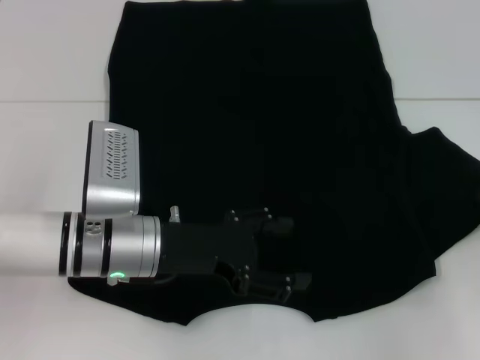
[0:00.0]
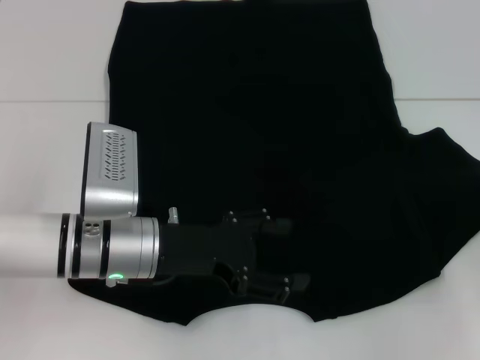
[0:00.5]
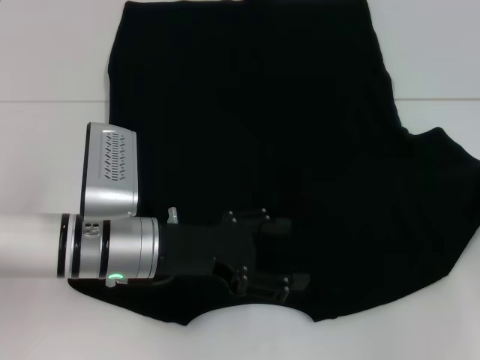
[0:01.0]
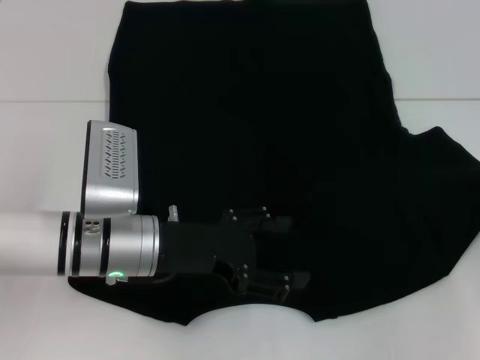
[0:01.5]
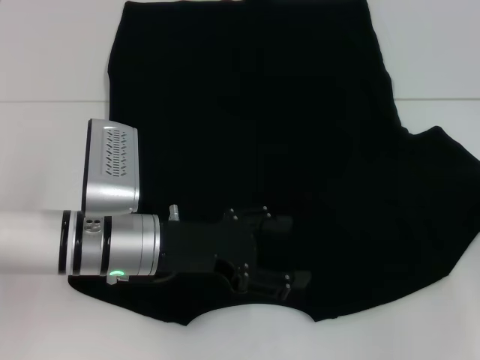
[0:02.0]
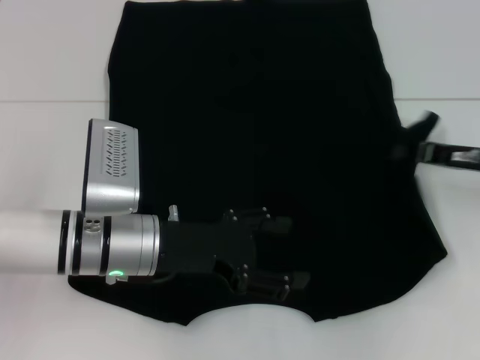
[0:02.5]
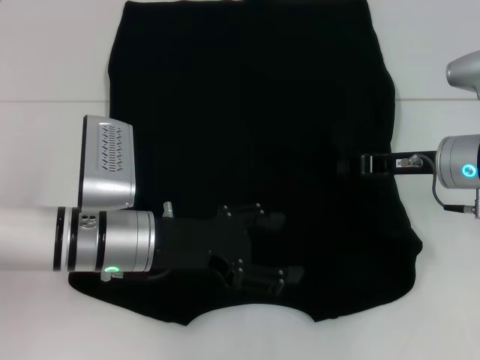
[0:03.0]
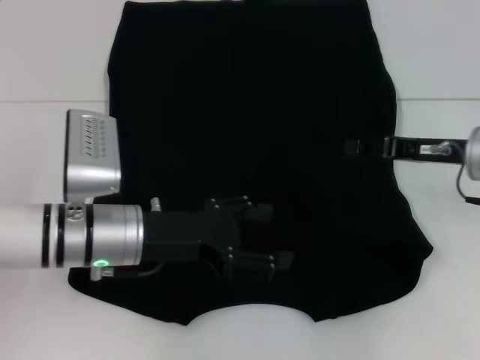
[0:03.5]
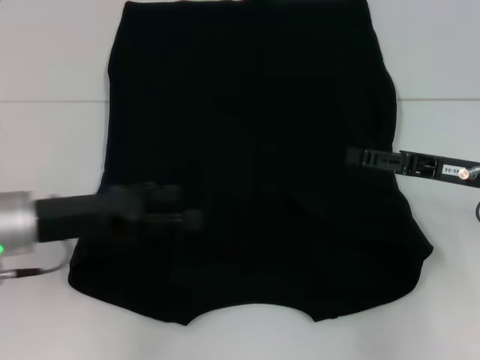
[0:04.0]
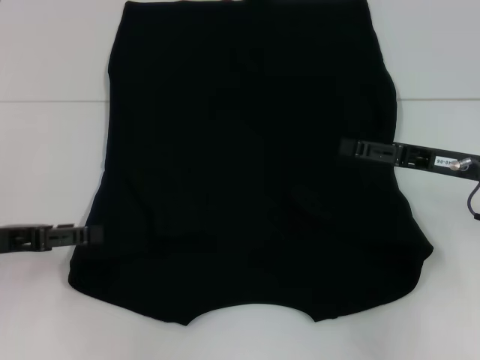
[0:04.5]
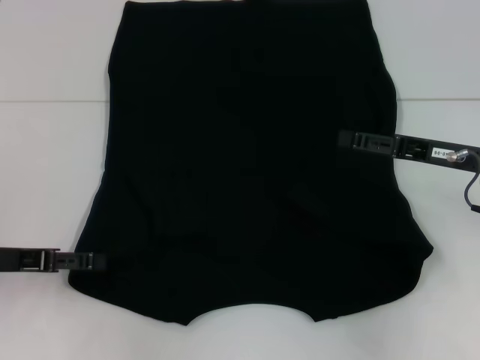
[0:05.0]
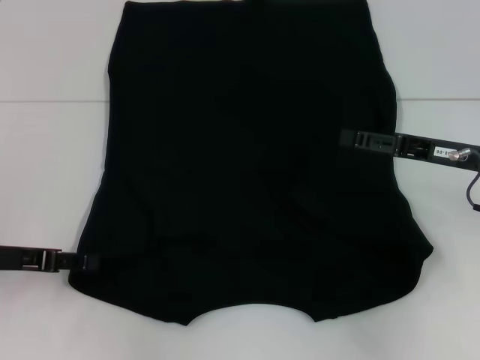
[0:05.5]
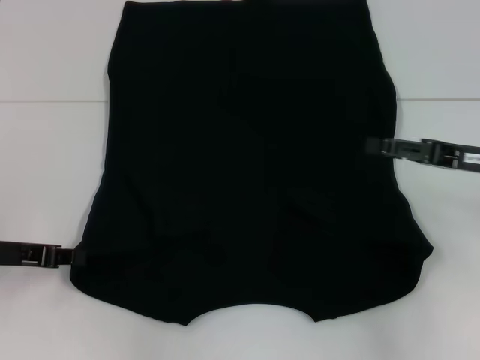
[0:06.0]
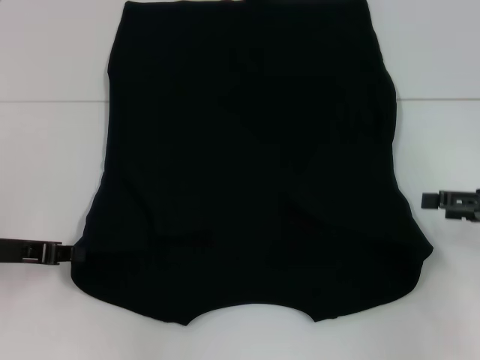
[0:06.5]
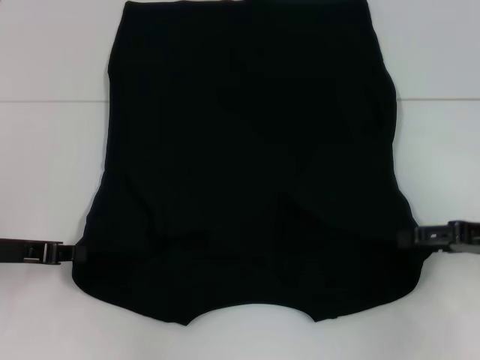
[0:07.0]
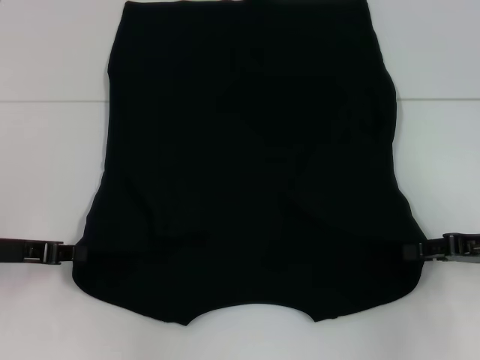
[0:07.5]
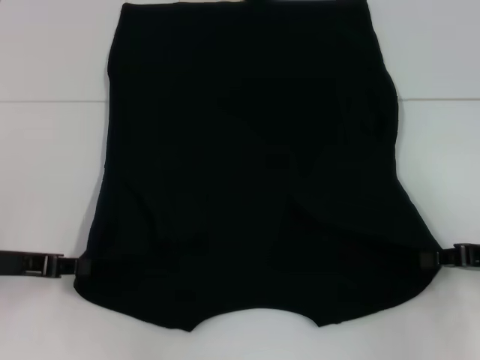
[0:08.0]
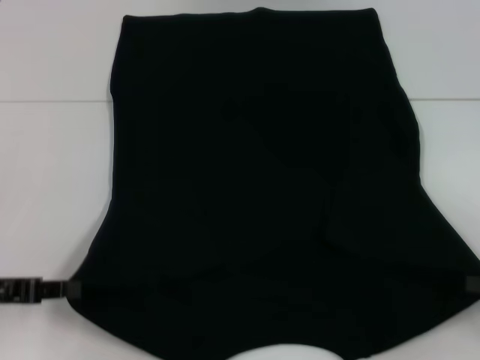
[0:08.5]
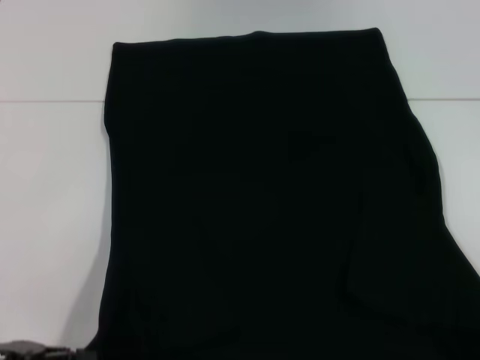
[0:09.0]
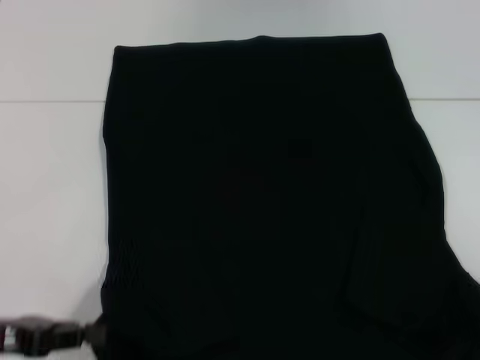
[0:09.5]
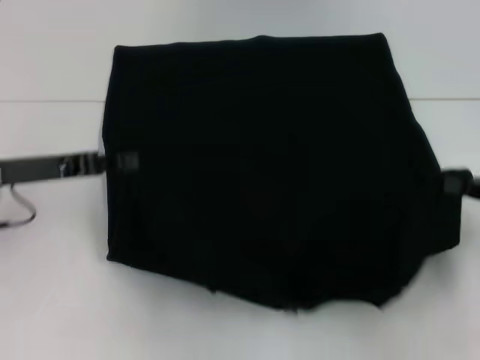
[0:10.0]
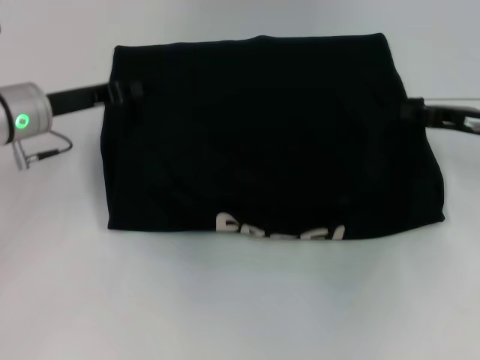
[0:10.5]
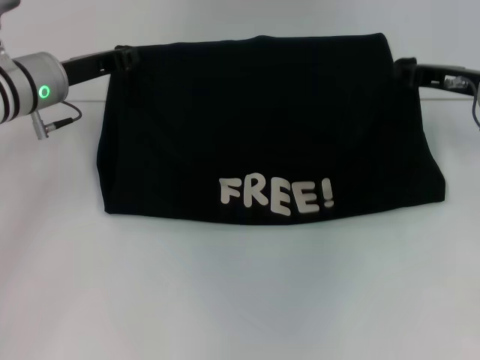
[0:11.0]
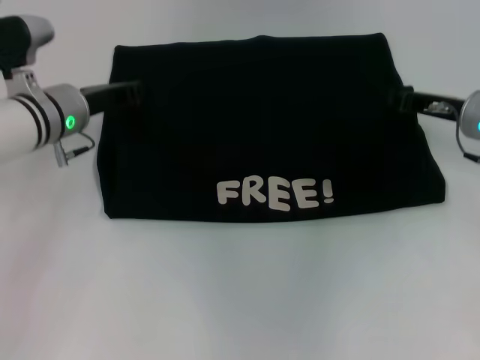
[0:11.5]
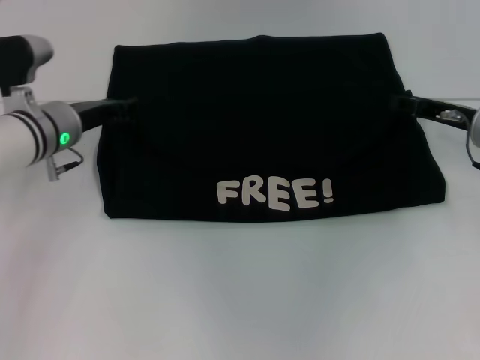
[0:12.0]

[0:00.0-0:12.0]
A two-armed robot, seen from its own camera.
Step, 0.0 to 3.0 s: Fold the bottom right sleeve with your right hand.
Step, 3.5 to 6.0 s: Grab the bottom left corner with your left hand.
Step, 6.5 to 8.0 s: Grab the bottom right corner with your right hand.
Step, 8.5 to 12.0 s: Fold the clothes with your left hand.
Step, 8.5 to 12.0 s: Fold the clothes with your right hand.
0.0 to 2.0 s: The grippers move only a little.
2.0 to 4.0 s: The grippers both shift to the left by about 10 cm. The right gripper opens its fingers.
4.0 to 6.0 s: The left gripper travels to the left by about 10 cm, and closes up.
6.0 to 8.0 s: The right gripper moves some 10 cm, and closes up.
8.0 to 10.0 s: The left gripper reaches roughly 10 cm backward, then returns. Meanwhile the right gripper reaches roughly 10 cm backward, then returns.
10.0 to 12.0 s: The left gripper shifts roughly 10 cm forward and to the right. The right gripper heads forward and to the left, covering roughly 15 cm, and opens.

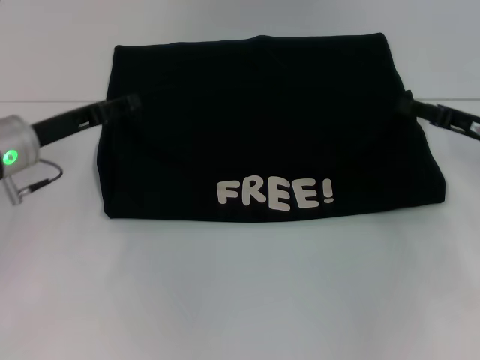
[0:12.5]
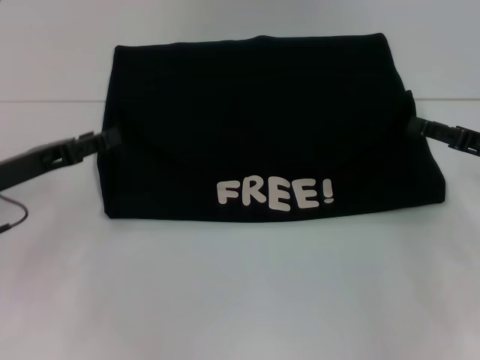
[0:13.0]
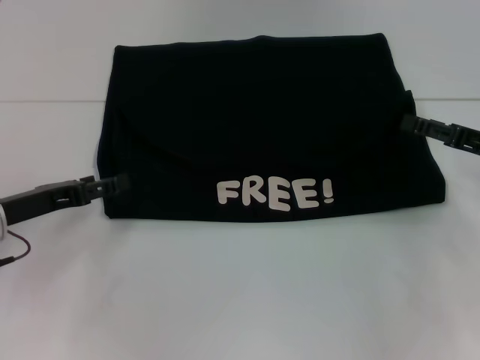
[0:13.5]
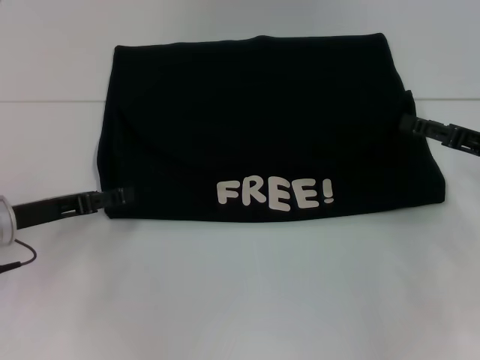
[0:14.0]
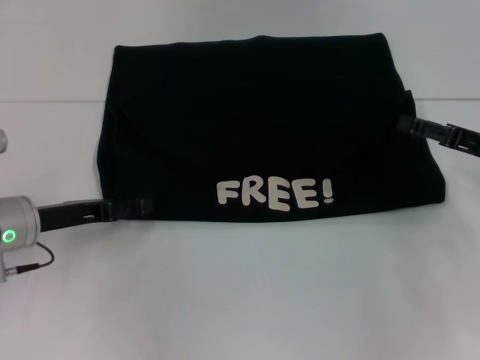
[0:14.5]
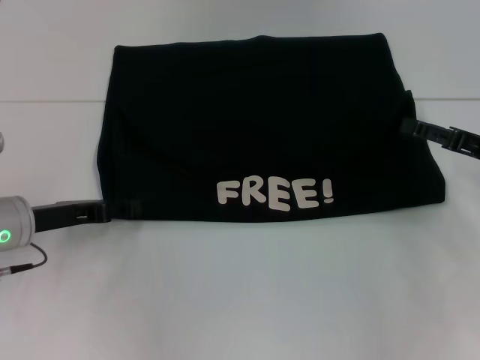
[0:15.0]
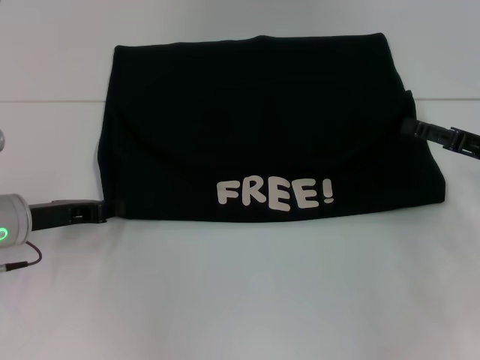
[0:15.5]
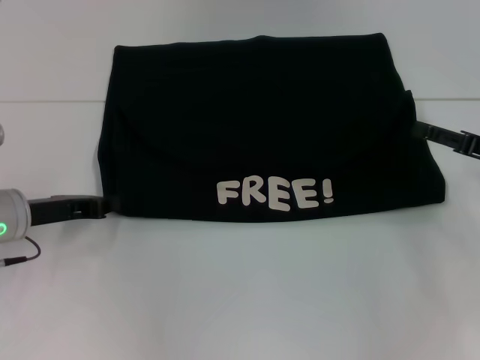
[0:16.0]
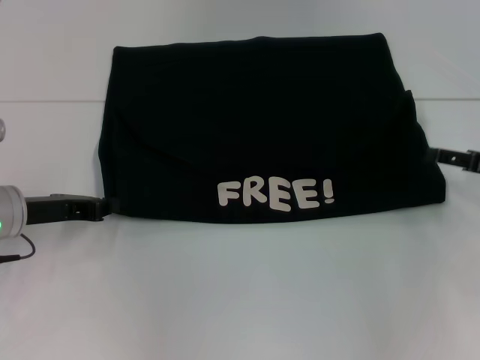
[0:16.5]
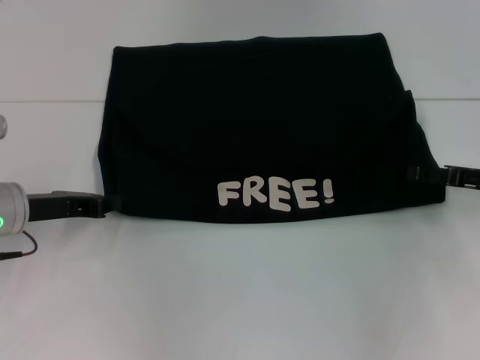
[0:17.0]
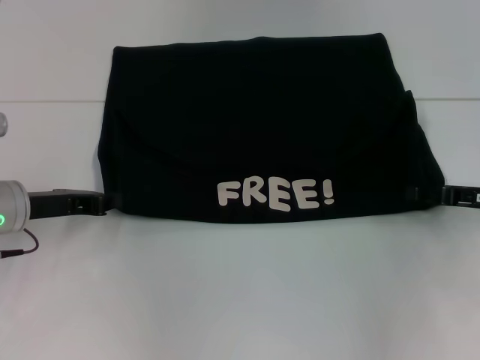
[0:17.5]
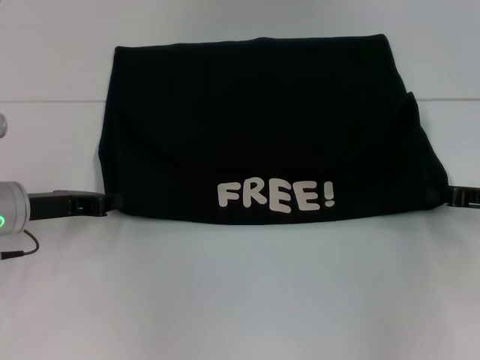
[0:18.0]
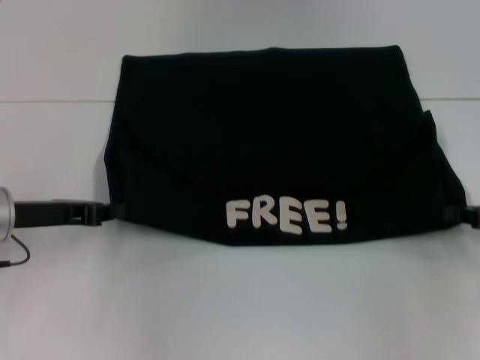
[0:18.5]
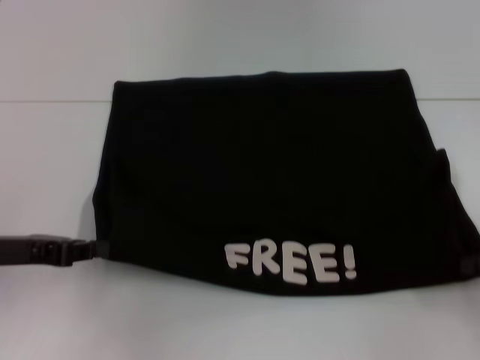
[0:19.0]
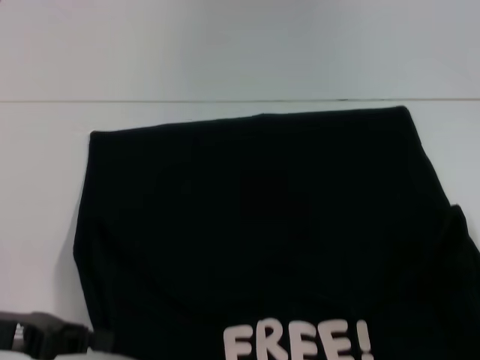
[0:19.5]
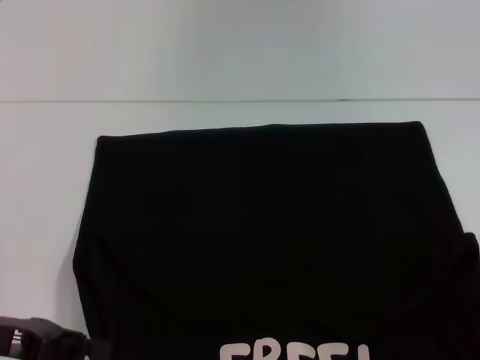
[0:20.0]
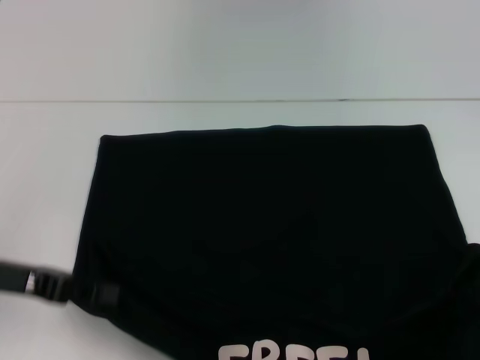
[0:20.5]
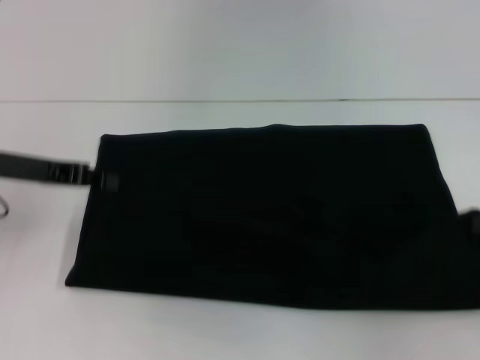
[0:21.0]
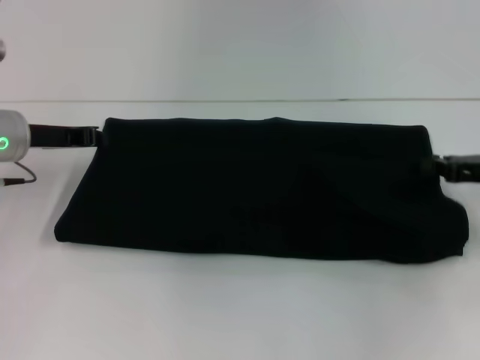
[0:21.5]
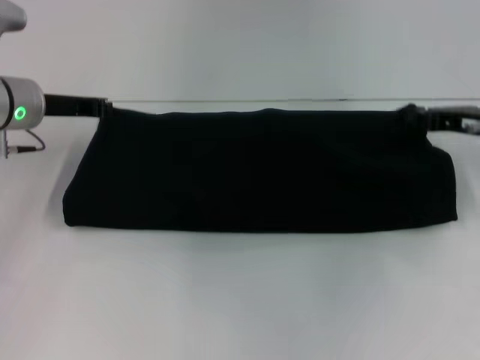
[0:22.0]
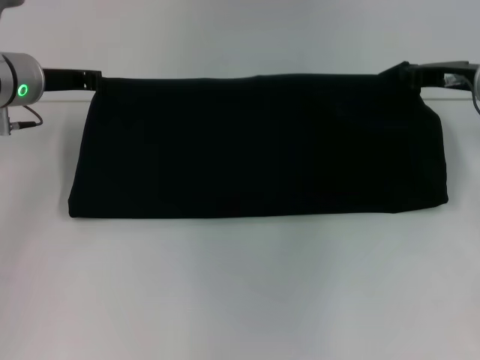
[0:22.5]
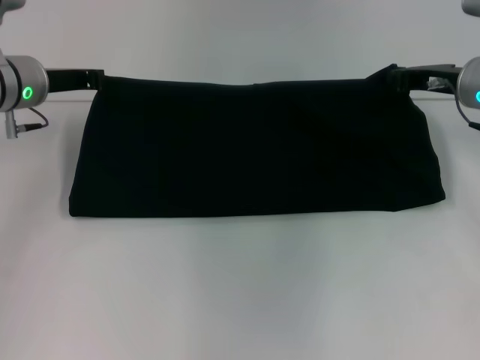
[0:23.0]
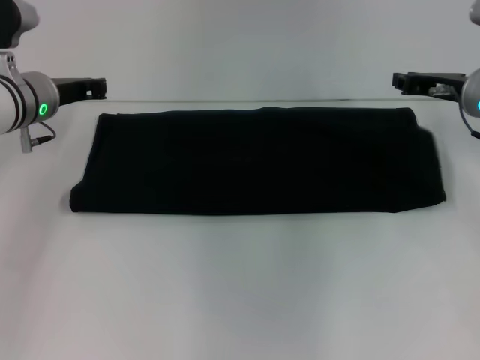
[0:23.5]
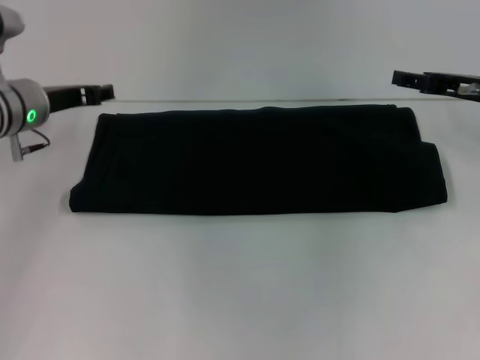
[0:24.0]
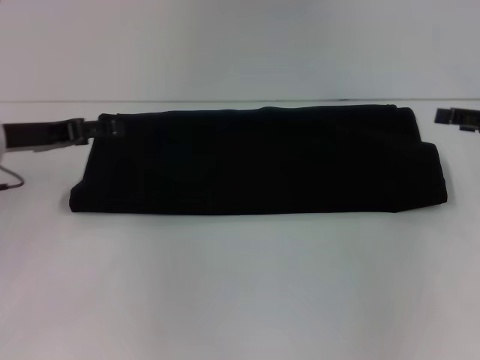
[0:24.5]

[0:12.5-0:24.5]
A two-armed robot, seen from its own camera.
Step, 12.5 to 20.0 s: Pull the clothes with your left hand.
Step, 12.5 to 20.0 s: Pull the clothes with your right hand.
Step, 20.5 to 23.0 s: Fold the clothes with your right hand.
12.5 to 14.5 s: The left gripper moves some 5 cm.
14.5 to 16.5 s: The left gripper closes its fingers.
16.5 to 18.5 s: The right gripper closes.
18.5 to 20.5 s: The right gripper travels backward by roughly 15 cm; the left gripper heads backward, covering some 5 cm.
20.5 to 22.5 s: The left gripper goes approximately 20 cm forward; the right gripper shifts roughly 30 cm forward and to the left.
22.5 to 24.5 s: The right gripper moves to the right and backward, some 10 cm, and opens; the left gripper heads backward, covering some 5 cm, and opens up.

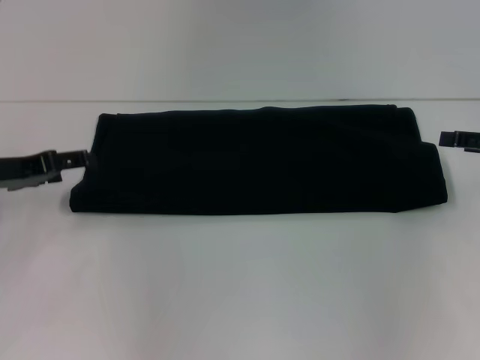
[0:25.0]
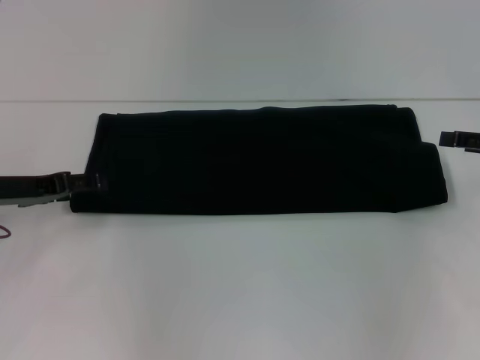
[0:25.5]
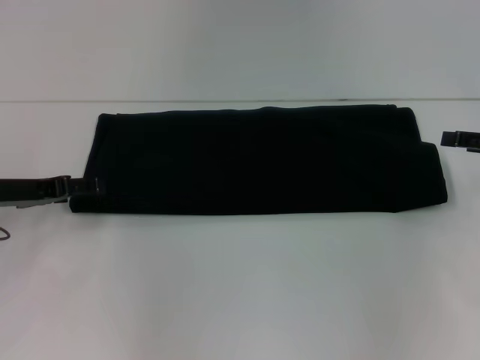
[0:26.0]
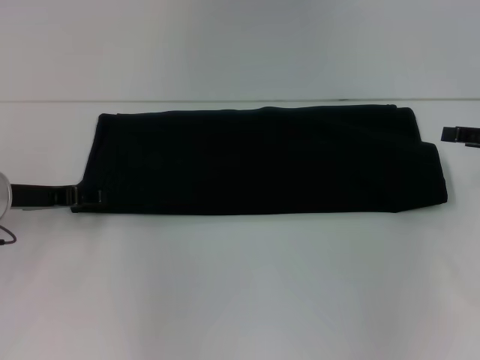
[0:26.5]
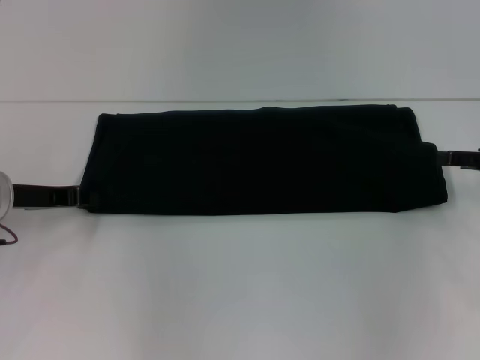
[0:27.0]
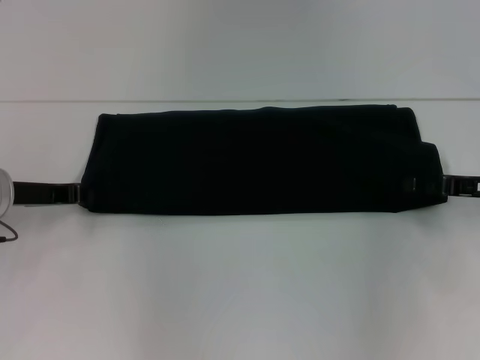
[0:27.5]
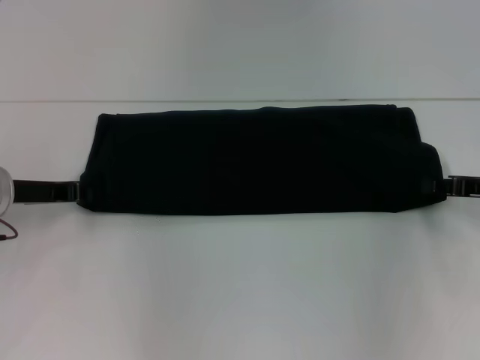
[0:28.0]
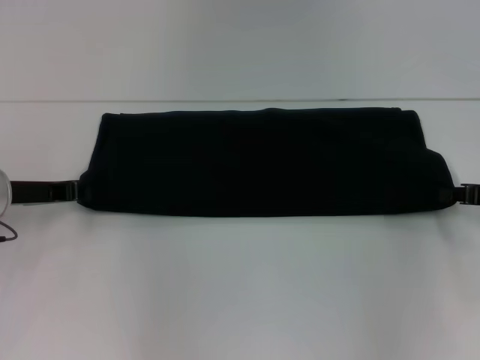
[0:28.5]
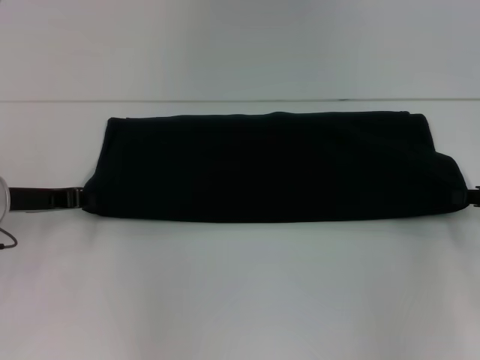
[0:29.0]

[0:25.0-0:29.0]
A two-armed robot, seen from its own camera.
25.0 to 27.0 s: The left gripper closes its fingers.
27.0 to 29.0 s: The right gripper closes.
